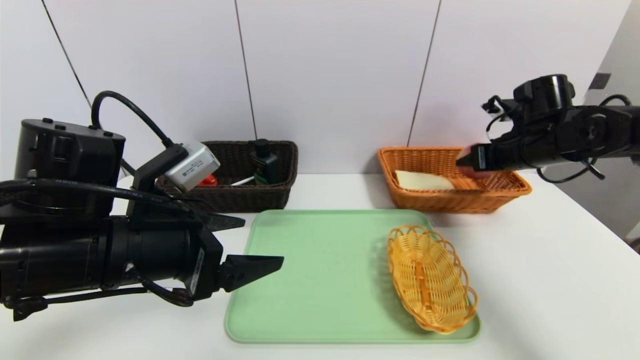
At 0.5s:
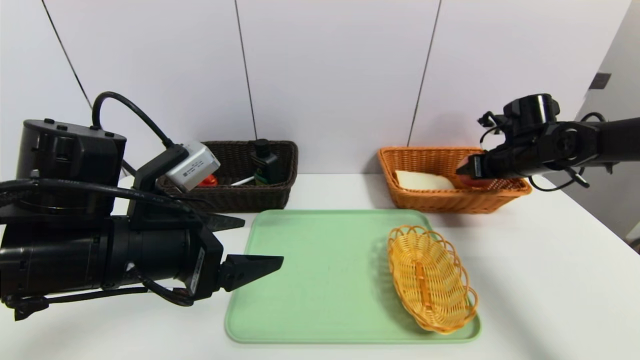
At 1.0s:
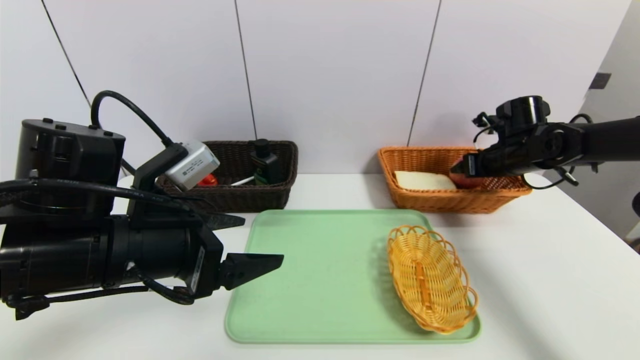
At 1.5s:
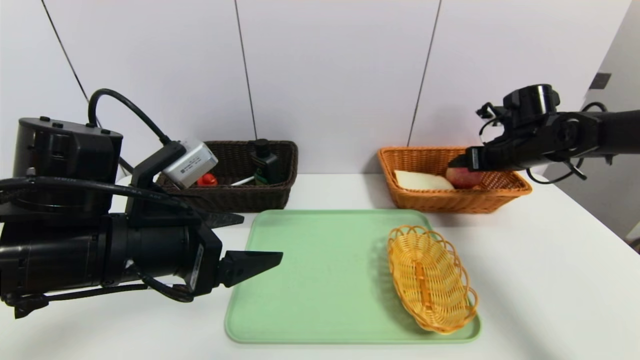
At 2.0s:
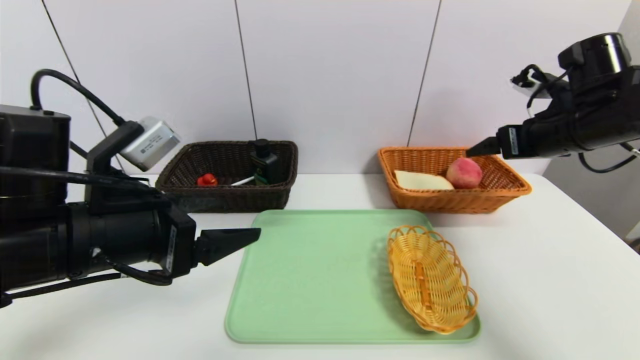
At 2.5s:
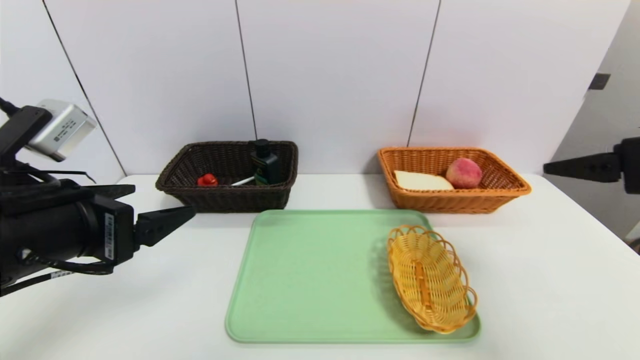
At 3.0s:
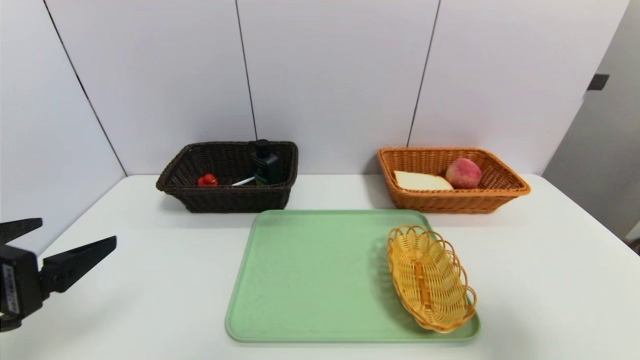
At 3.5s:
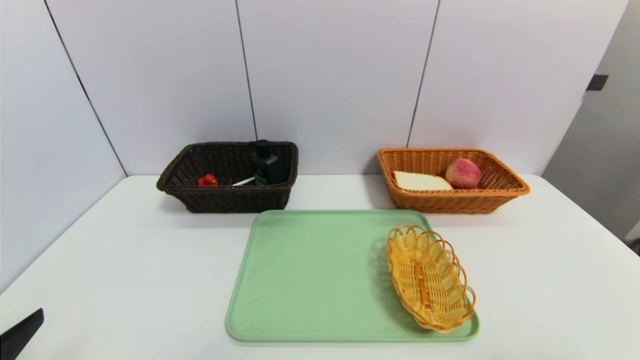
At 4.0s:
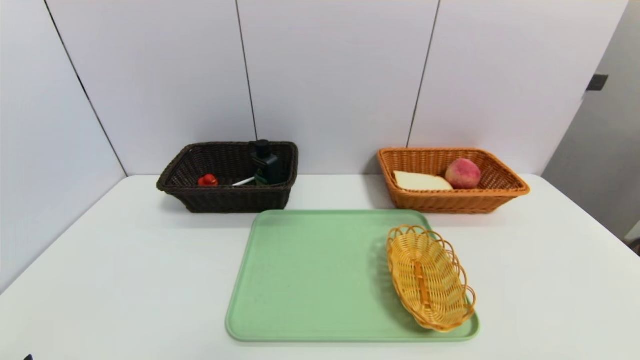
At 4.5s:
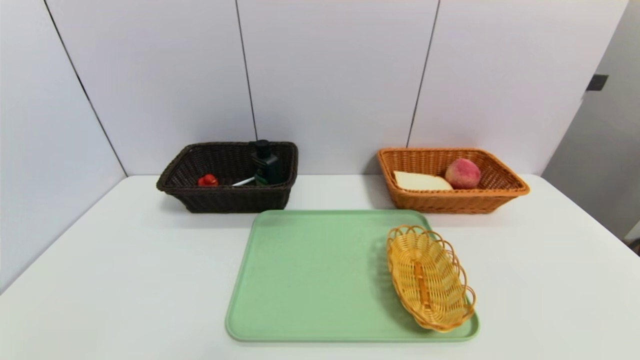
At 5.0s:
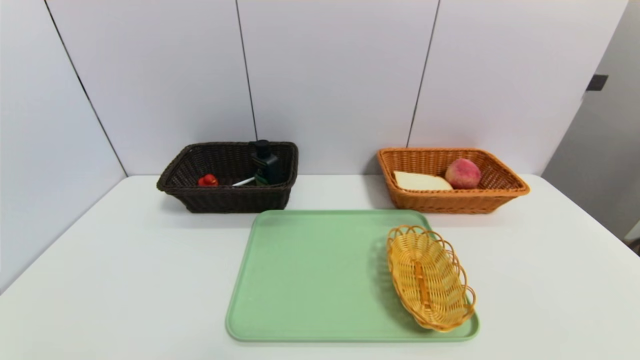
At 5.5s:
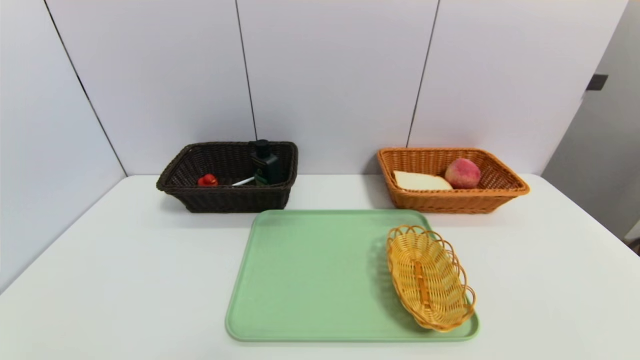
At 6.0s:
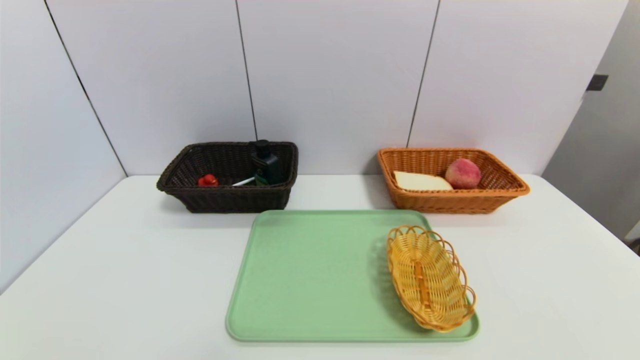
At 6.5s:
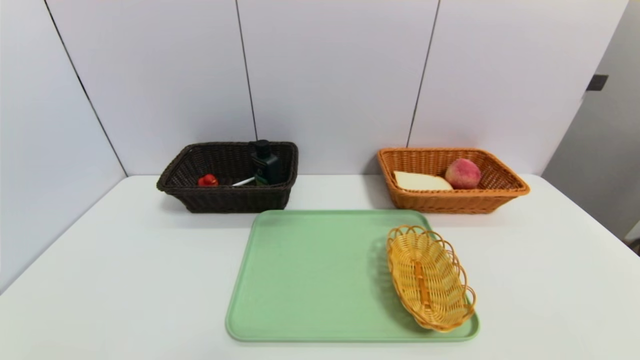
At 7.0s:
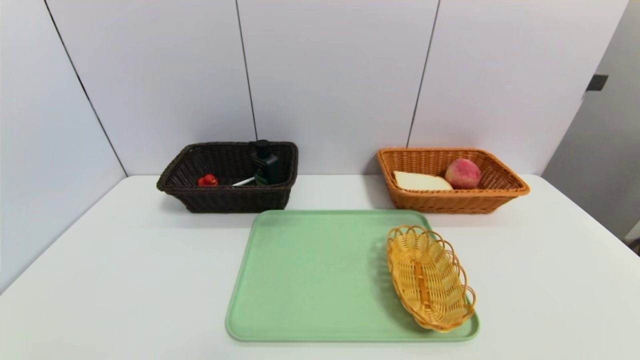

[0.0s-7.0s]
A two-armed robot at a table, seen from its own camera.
Task of the whole recording: place the food in the right basket with the right gripper, and place the non food items in the left basket with the left gripper.
0.0s to 2.0s: The right gripper heads backward and upward, covering approximately 10 cm.
2.0s to 3.5s: The right gripper goes about 35 cm backward, while the left gripper is displaced backward and to the left by approximately 20 cm.

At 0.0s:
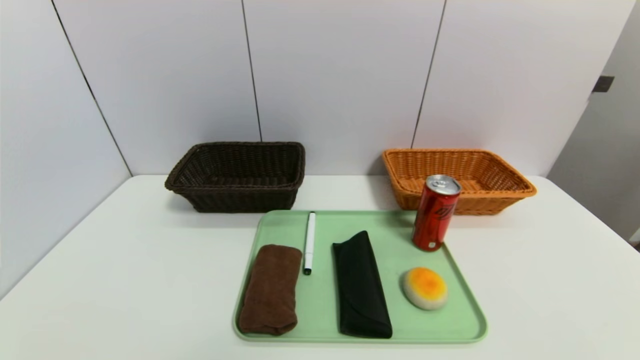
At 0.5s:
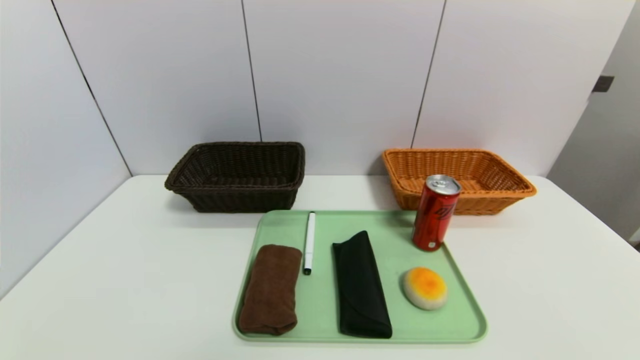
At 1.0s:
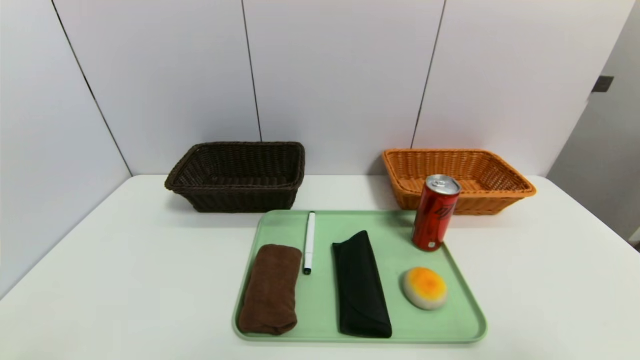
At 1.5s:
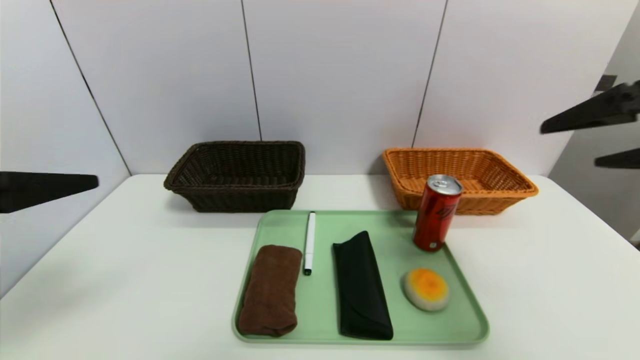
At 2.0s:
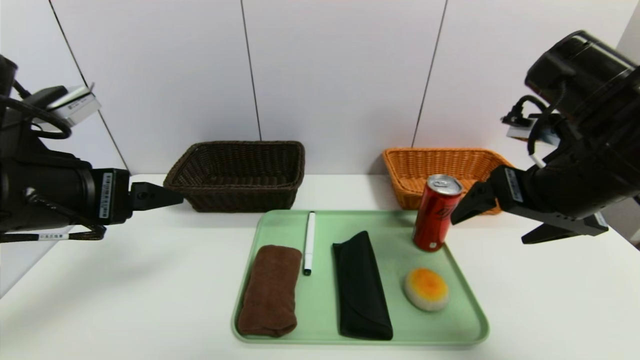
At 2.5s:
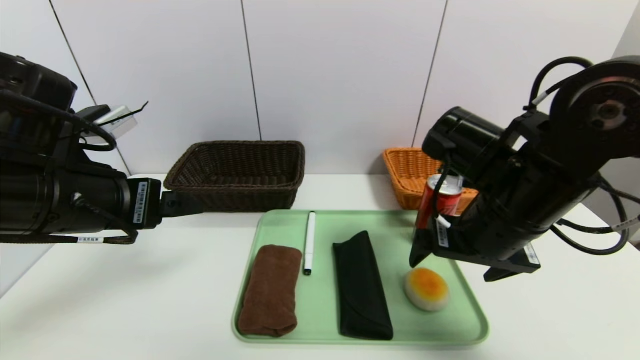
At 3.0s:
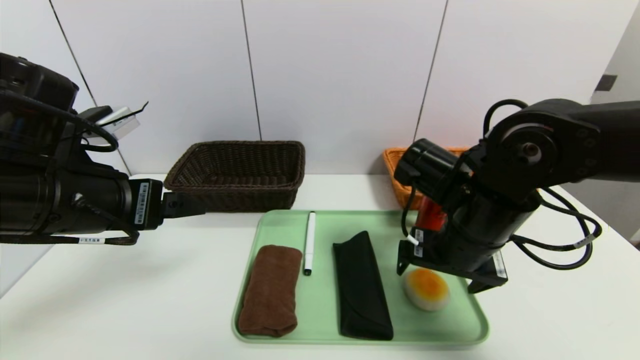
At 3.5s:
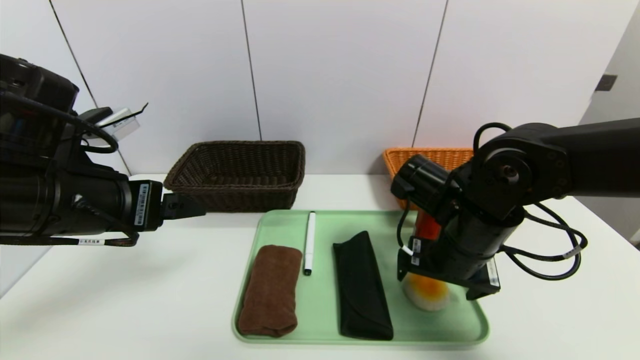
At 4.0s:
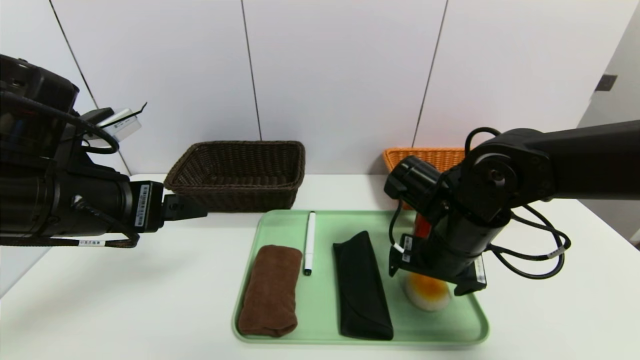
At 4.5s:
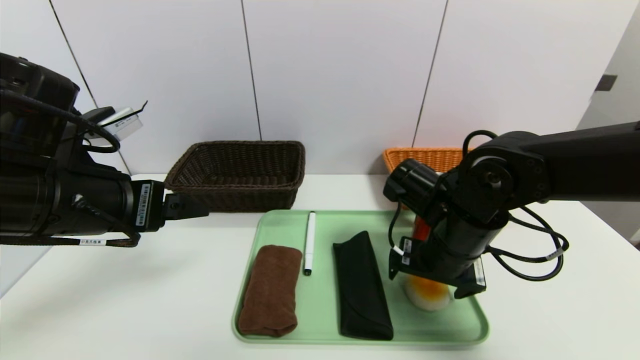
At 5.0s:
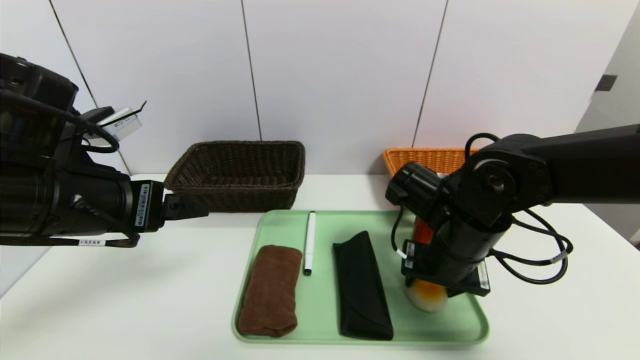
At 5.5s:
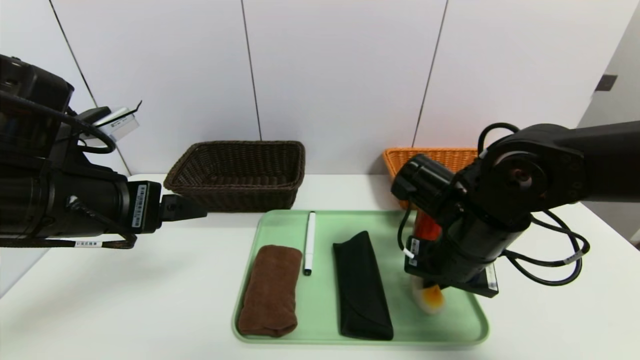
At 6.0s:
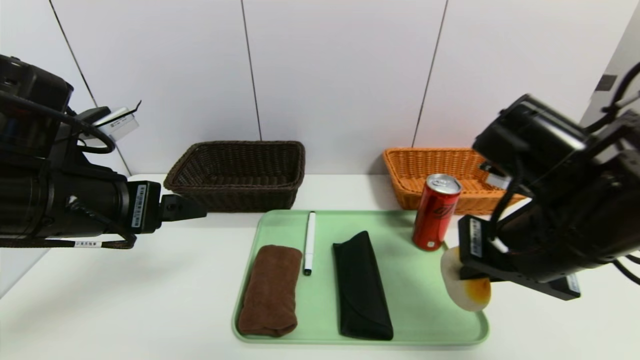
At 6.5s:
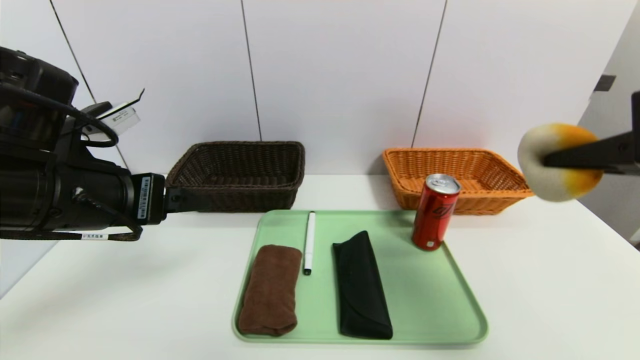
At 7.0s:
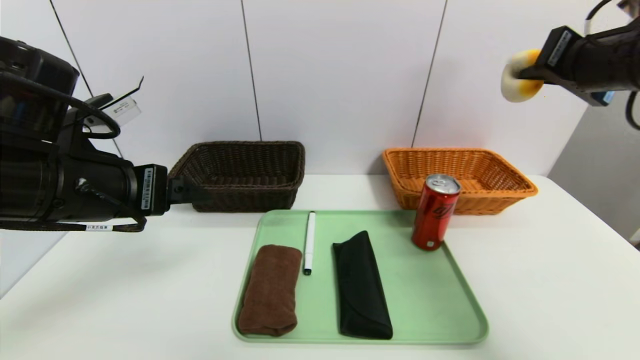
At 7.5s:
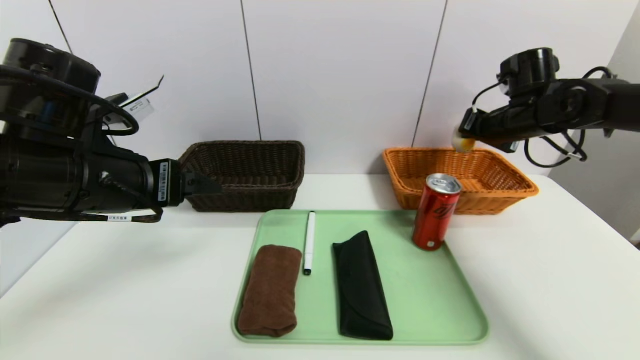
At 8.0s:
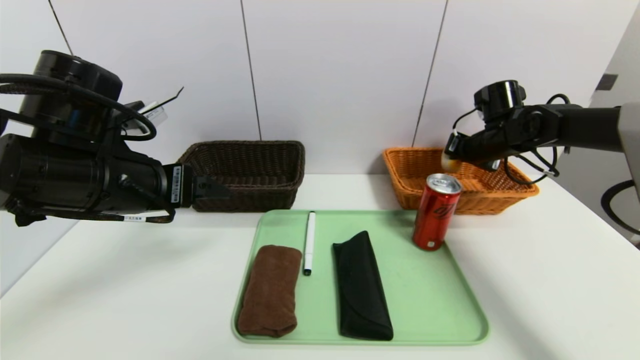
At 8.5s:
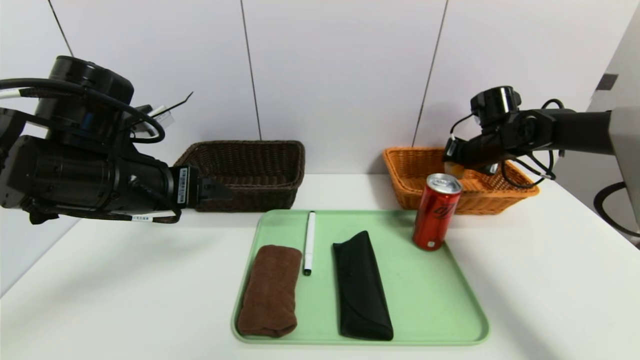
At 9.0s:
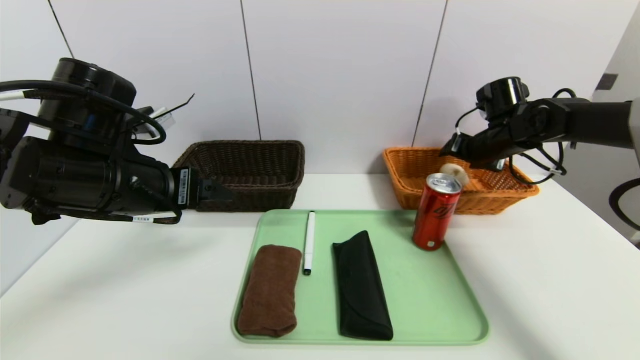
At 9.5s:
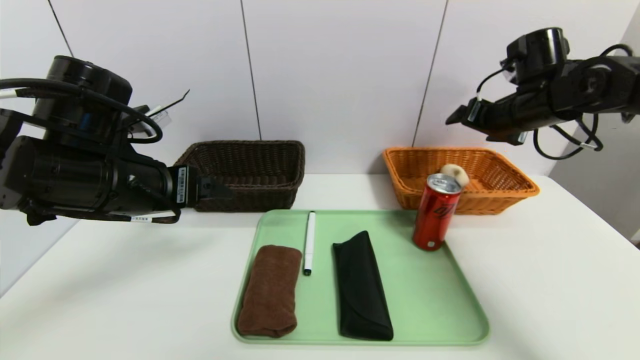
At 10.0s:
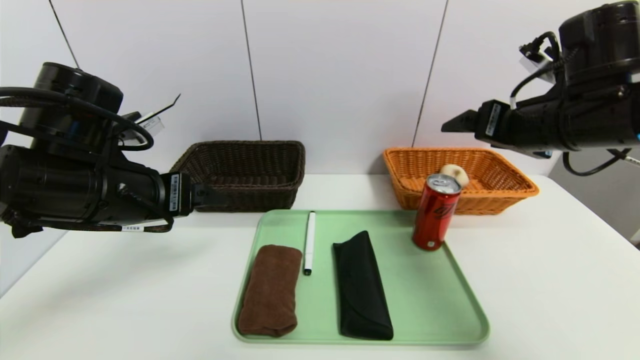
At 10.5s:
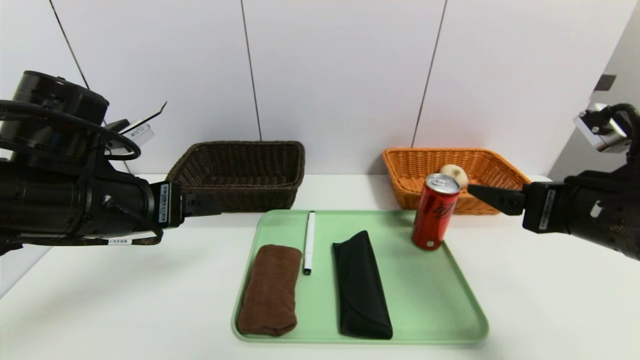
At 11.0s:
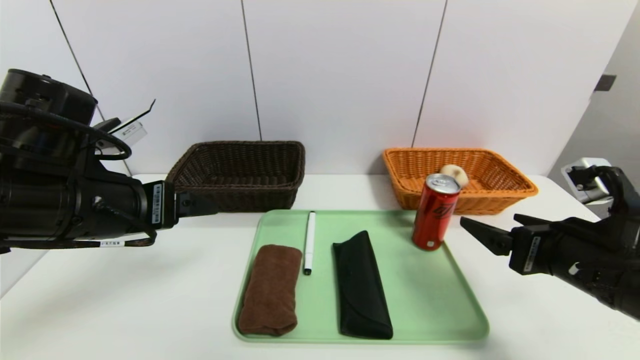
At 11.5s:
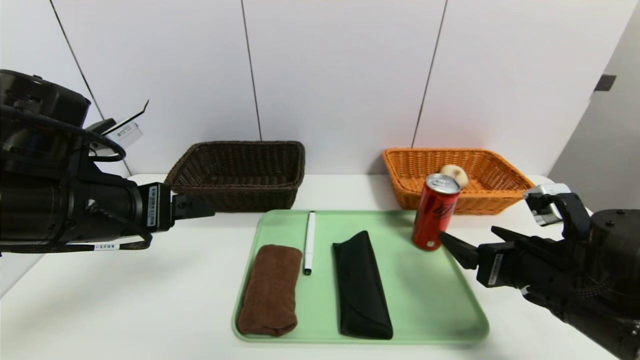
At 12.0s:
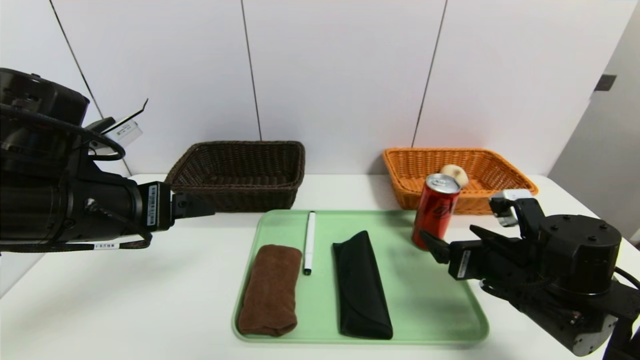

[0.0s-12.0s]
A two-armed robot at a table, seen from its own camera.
Task of the whole recording: place the food in the right basket with the right gripper, and place the non food items in the left basket with the left gripper.
Step, 0.0s to 9.0s: Grasp the egg yolk pastry and put it in the right basket.
0.0s to 2.0s: The left gripper moves upward and forward, roughly 30 cm. Meanwhile the right gripper goes about 35 cm forward, upward and to the left.
2.0s to 4.0s: The right gripper goes about 15 cm downward and to the left.
4.0s to 6.0s: The right gripper is displaced upward and backward by some 10 cm, and closes.
6.0s to 8.0s: The right gripper moves forward and to the right, approximately 30 cm.
8.0s to 10.0s: The right gripper goes approximately 20 cm backward and upward, and opens up.
10.0s to 12.0s: The right gripper shifts some 20 cm downward and backward.

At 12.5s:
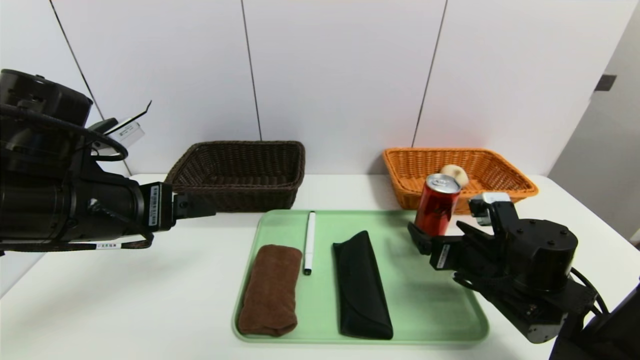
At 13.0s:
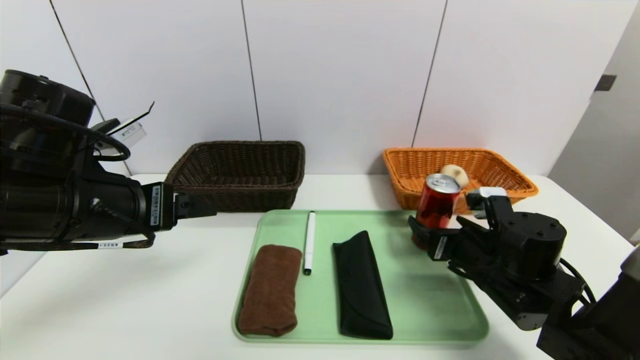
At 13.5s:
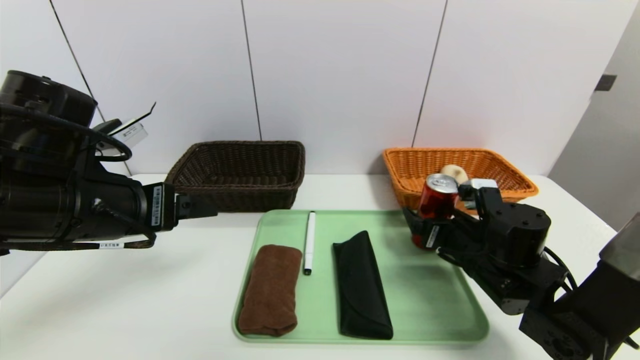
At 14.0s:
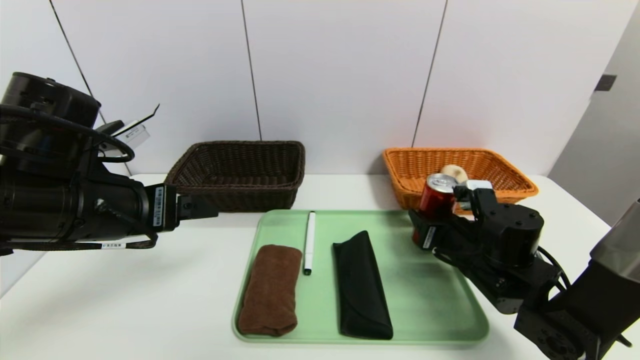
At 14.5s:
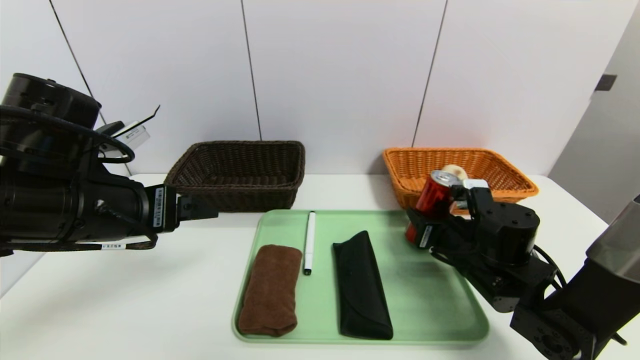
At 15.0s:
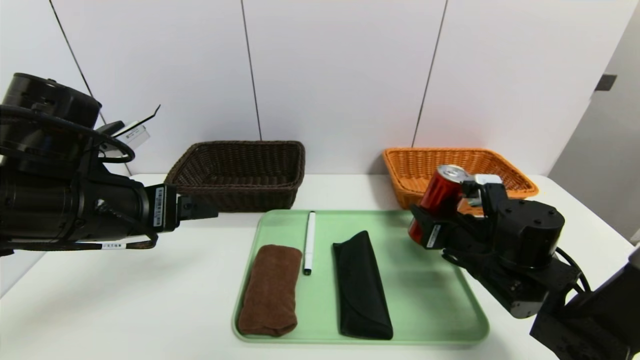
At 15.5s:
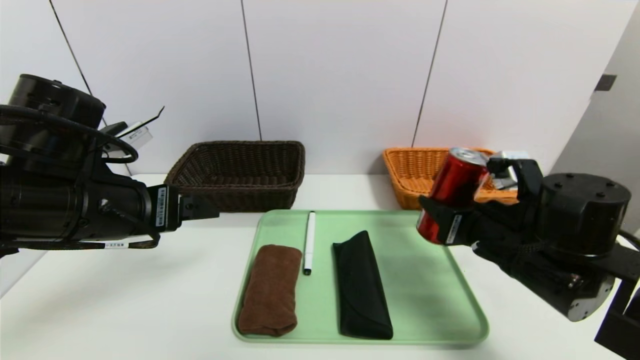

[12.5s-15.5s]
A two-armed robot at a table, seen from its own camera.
Task of the whole recording: place the food in the right basket with the right gripper, and place the non food items in the left basket with the left gripper.
12.5s to 14.0s: The right gripper closes its fingers.
14.0s to 15.5s: The right gripper goes approximately 10 cm upward and backward.
